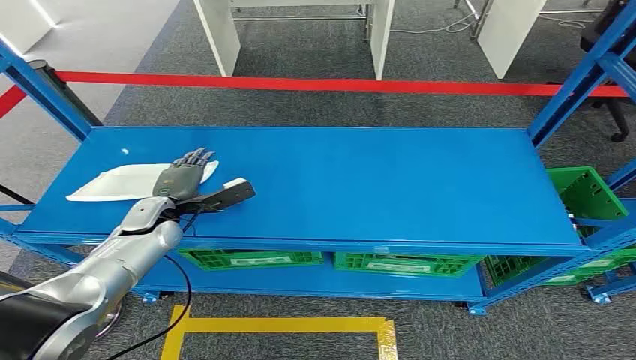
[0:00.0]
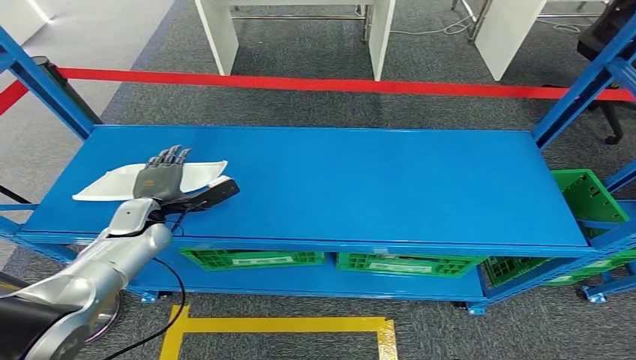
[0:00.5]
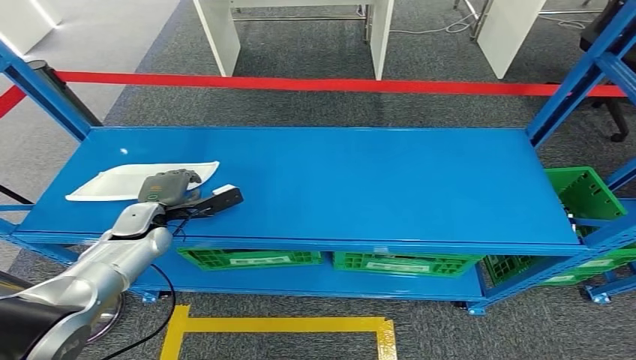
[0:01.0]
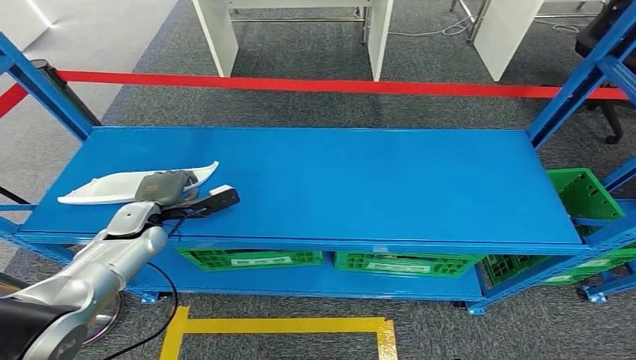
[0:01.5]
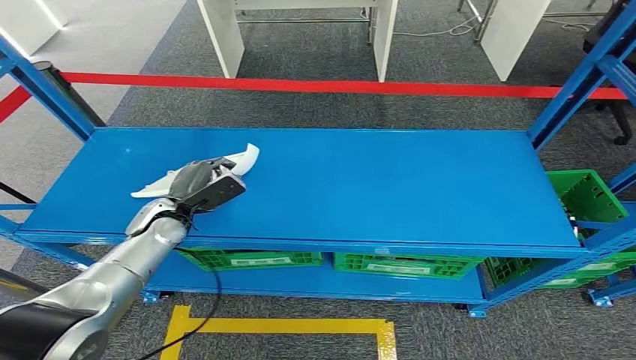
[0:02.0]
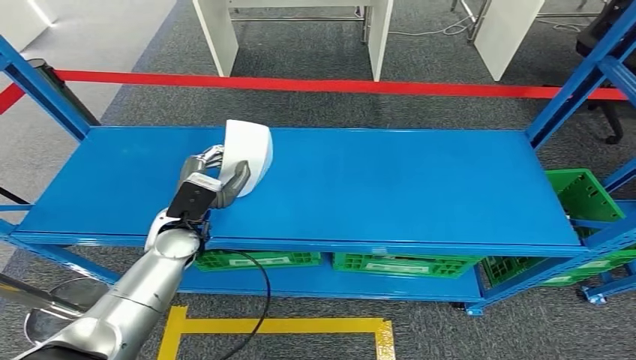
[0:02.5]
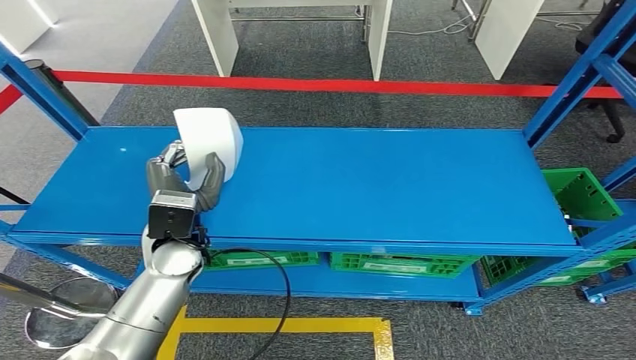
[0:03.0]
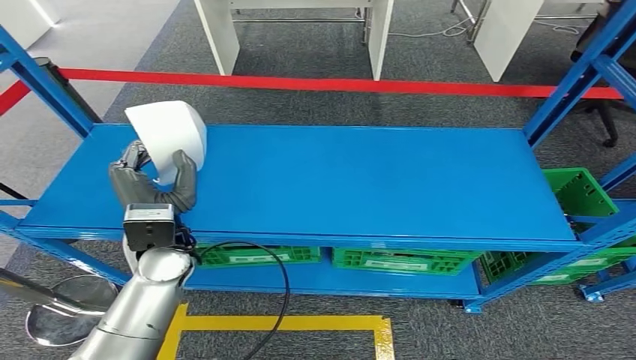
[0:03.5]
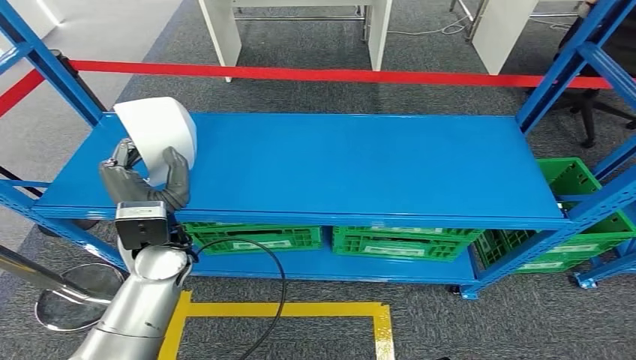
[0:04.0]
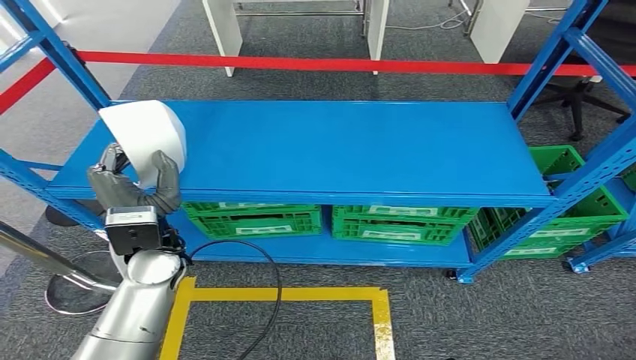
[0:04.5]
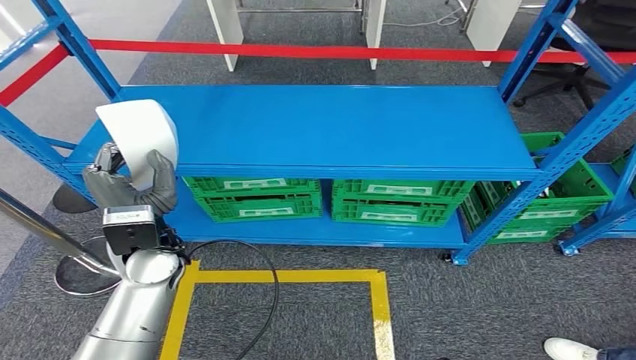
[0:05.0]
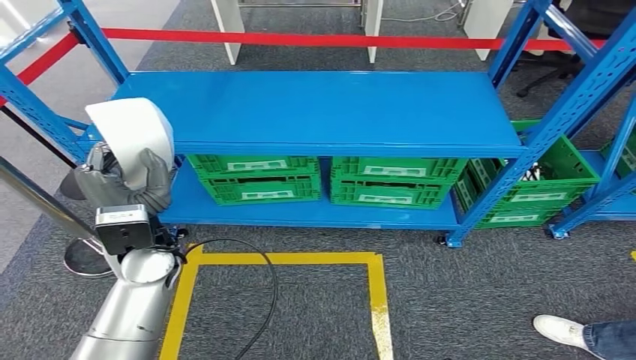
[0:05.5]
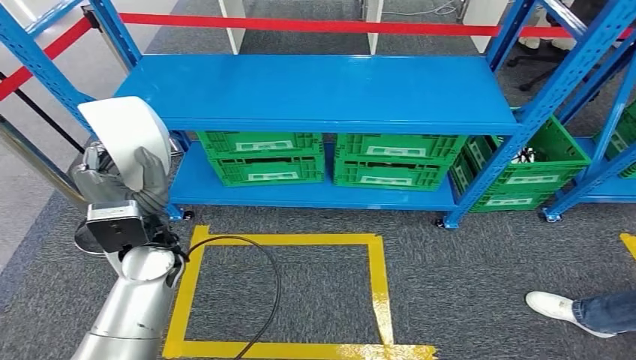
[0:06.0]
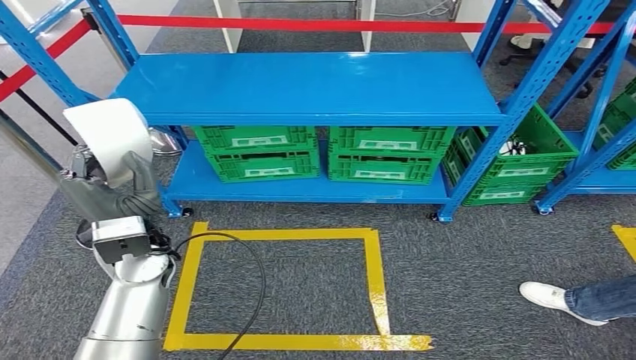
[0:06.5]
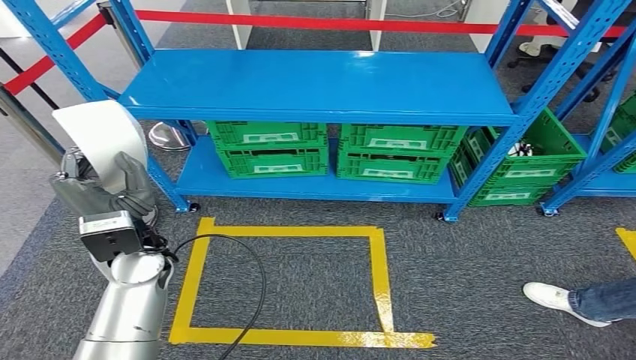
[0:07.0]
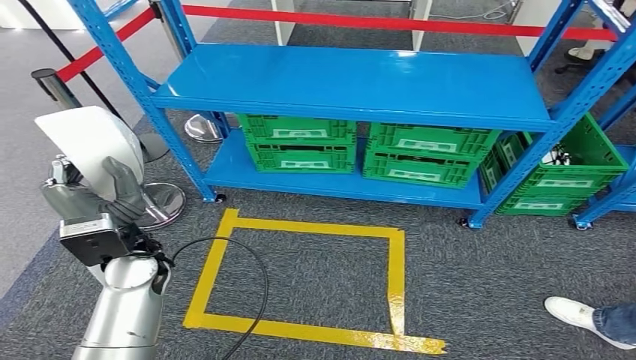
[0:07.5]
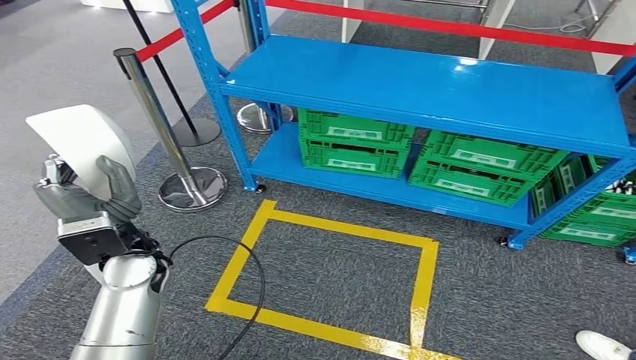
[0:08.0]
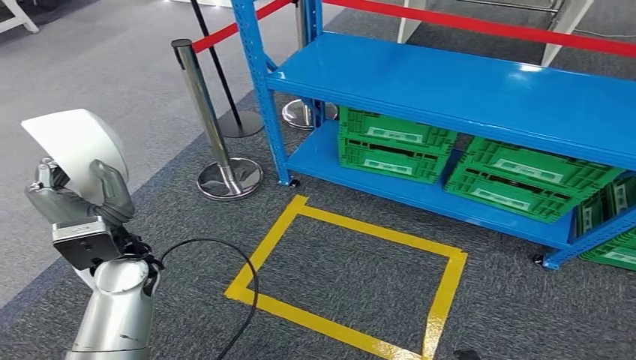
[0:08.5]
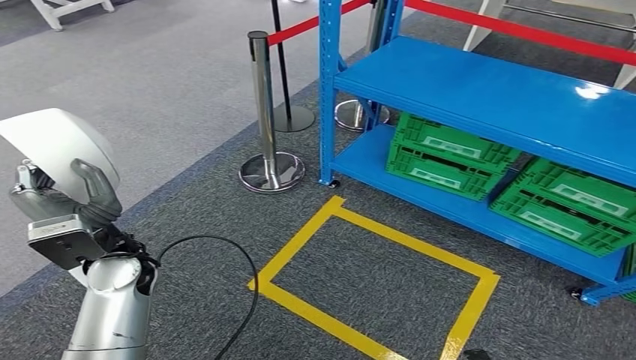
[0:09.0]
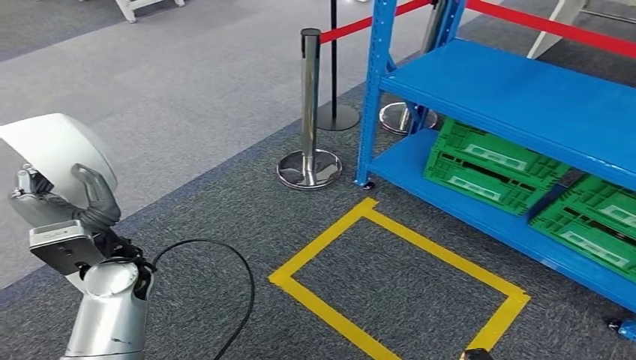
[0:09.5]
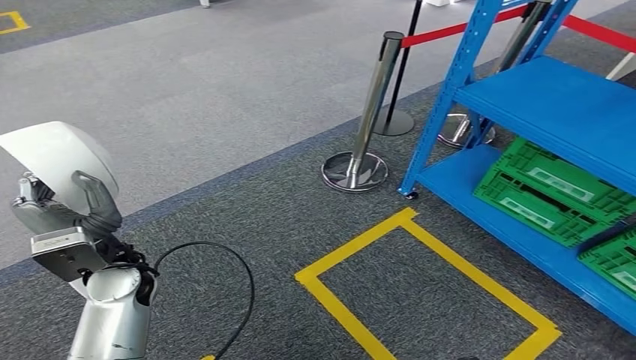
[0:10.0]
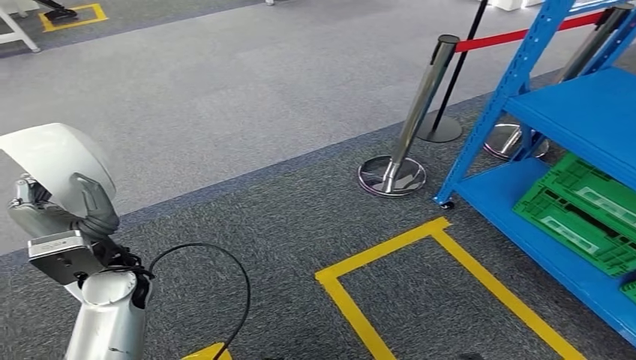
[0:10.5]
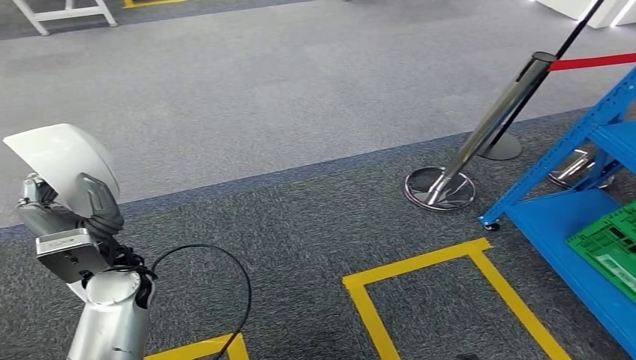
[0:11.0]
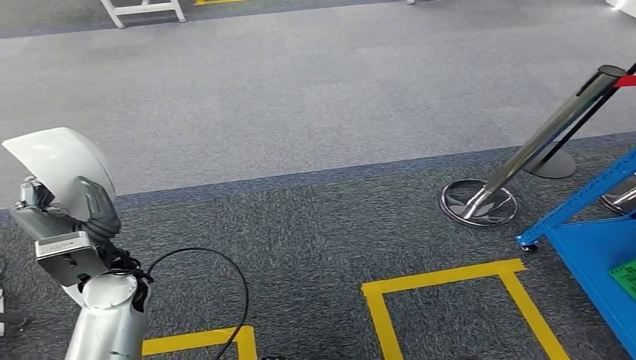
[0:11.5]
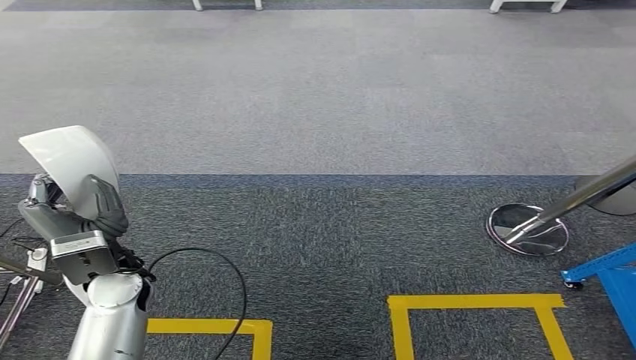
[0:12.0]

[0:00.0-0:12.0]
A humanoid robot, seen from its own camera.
Step, 0:00.0 to 0:05.0: Pick up the small component from the shelf.

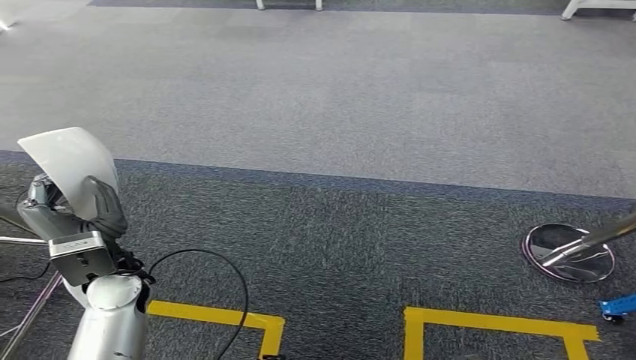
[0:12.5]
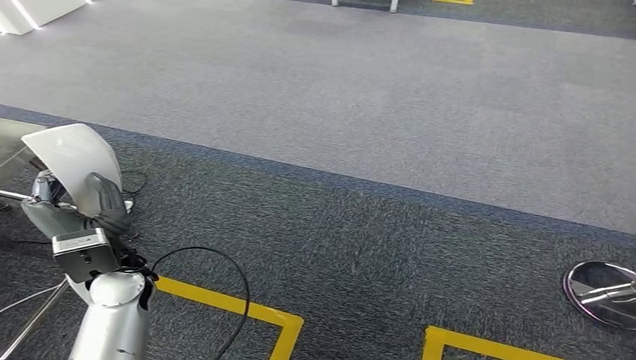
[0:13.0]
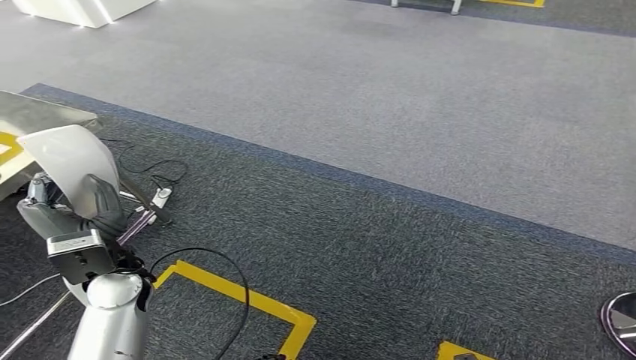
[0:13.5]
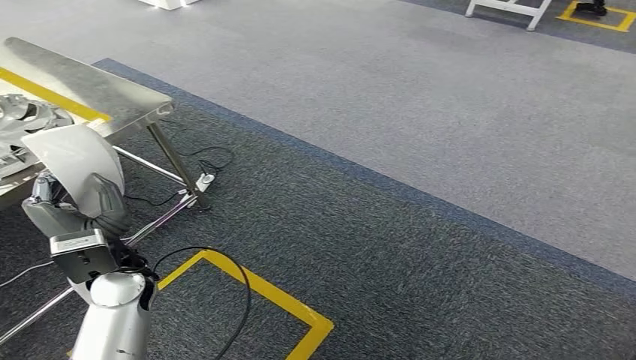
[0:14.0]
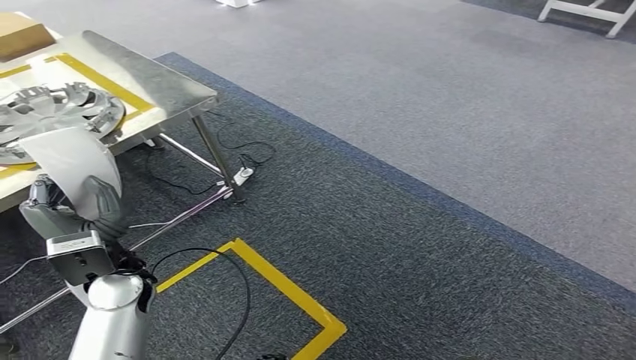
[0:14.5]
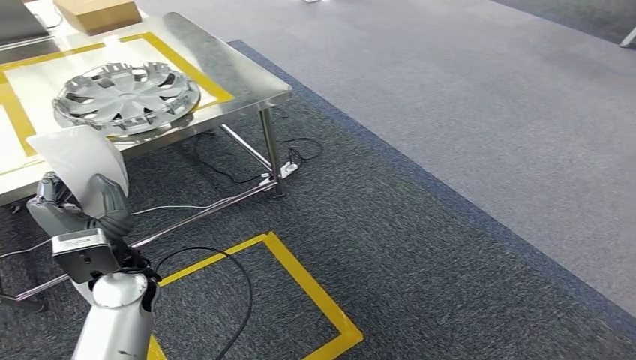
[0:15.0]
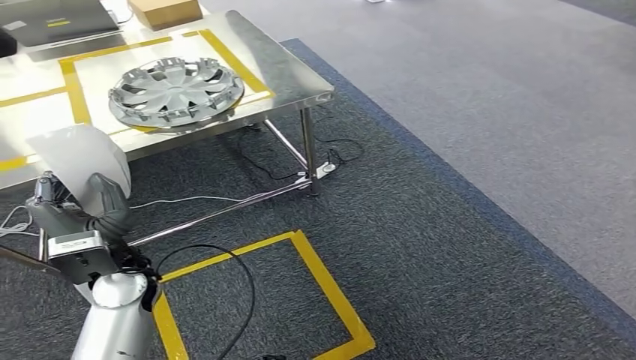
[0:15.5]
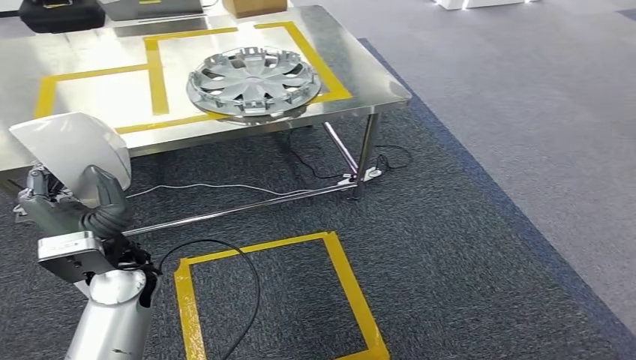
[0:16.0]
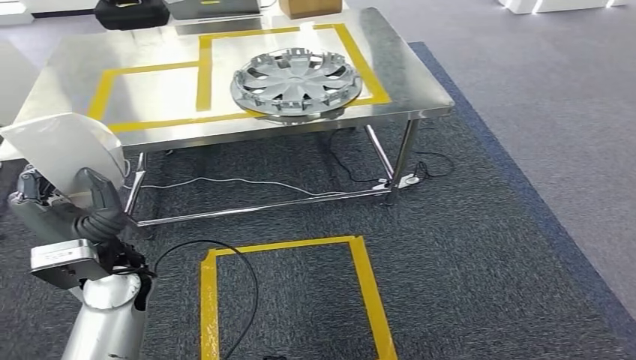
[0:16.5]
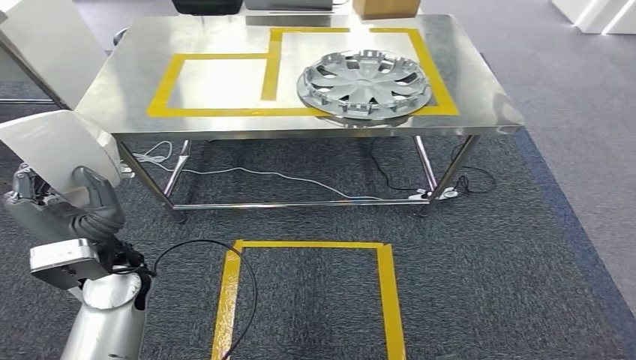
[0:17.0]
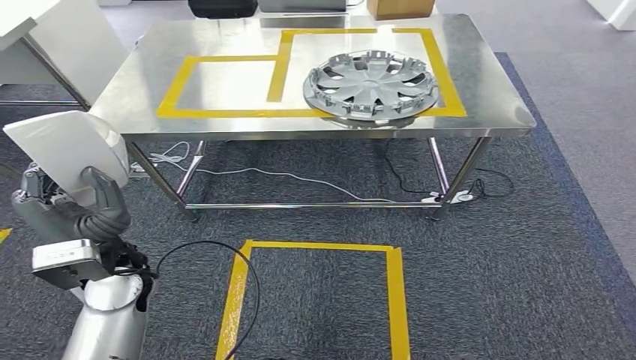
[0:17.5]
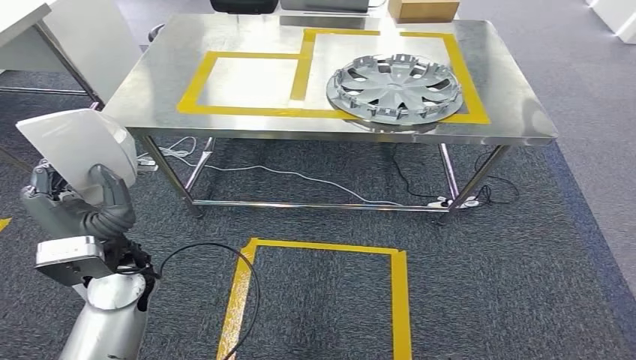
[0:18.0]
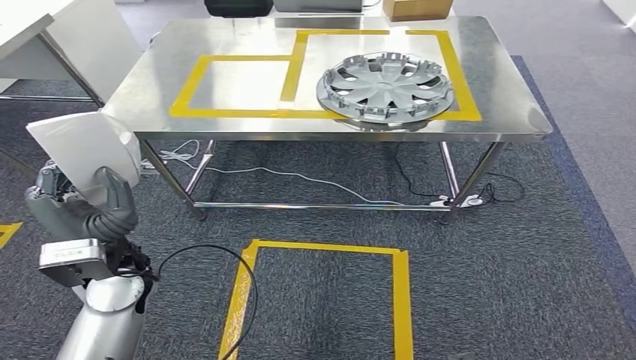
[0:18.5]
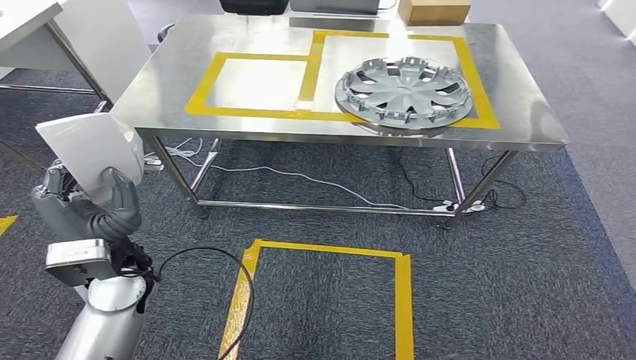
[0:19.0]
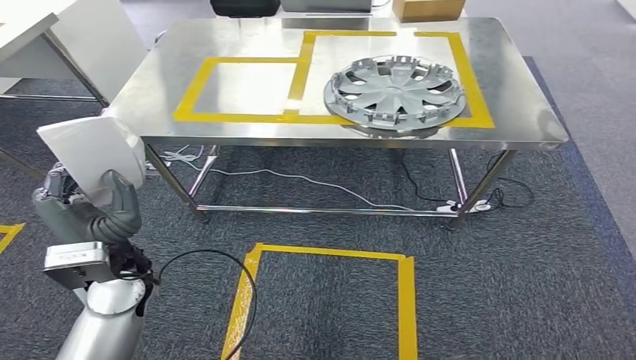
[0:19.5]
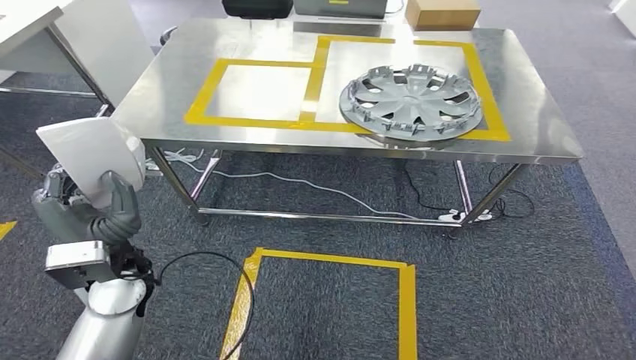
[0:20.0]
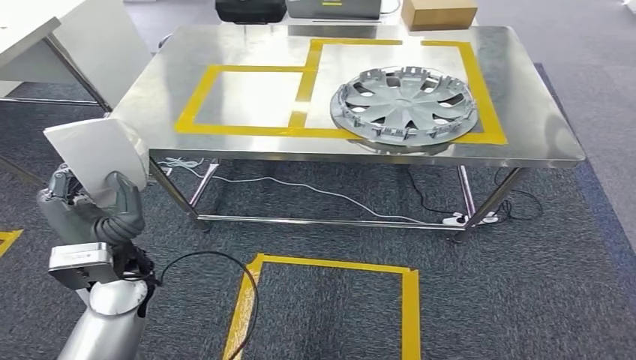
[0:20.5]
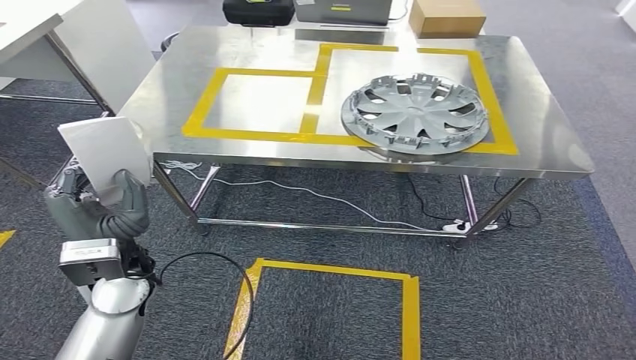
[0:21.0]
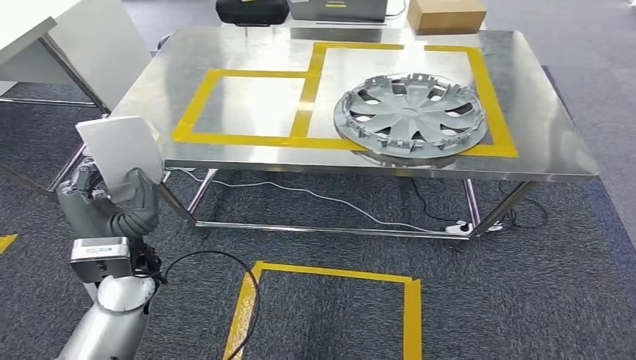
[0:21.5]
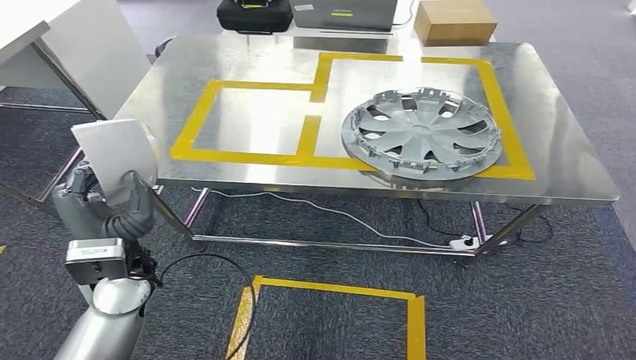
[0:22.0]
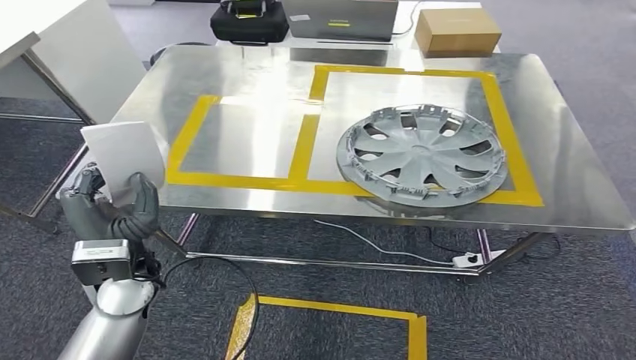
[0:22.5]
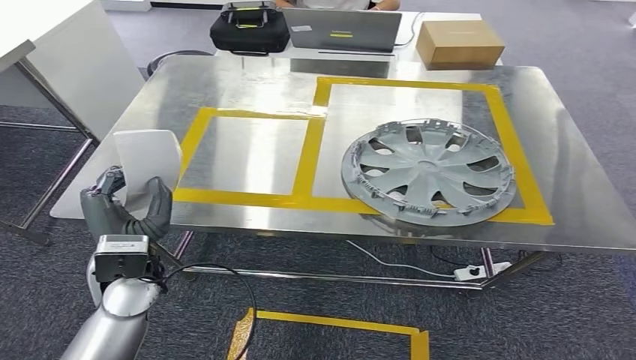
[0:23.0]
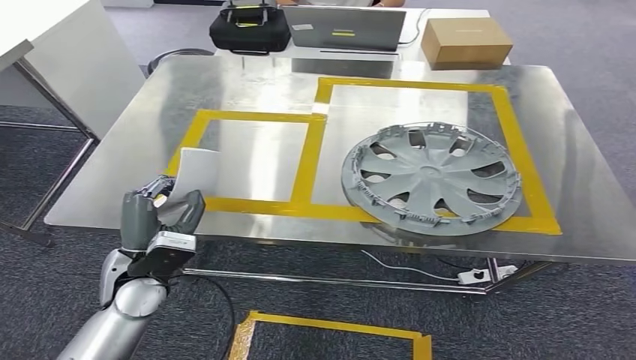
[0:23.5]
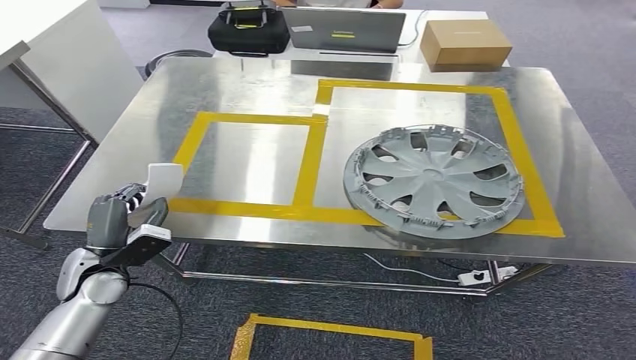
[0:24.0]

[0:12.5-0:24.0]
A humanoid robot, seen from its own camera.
Step, 0:12.5 to 0:21.5: Move the small component to the workbench.
